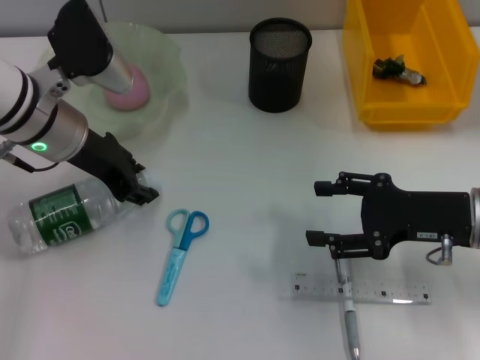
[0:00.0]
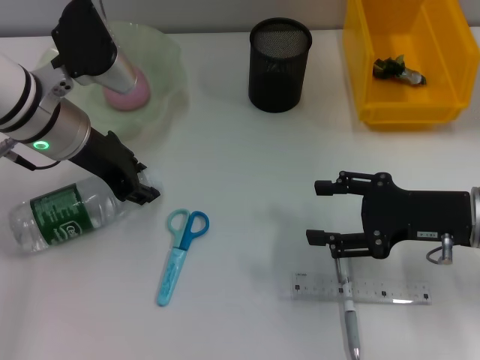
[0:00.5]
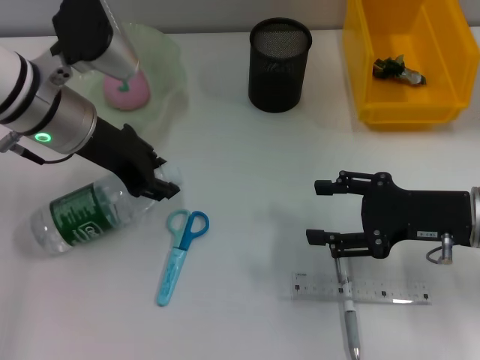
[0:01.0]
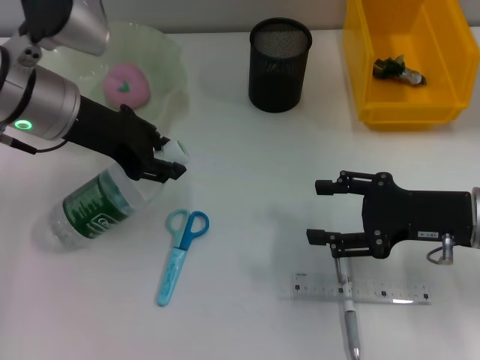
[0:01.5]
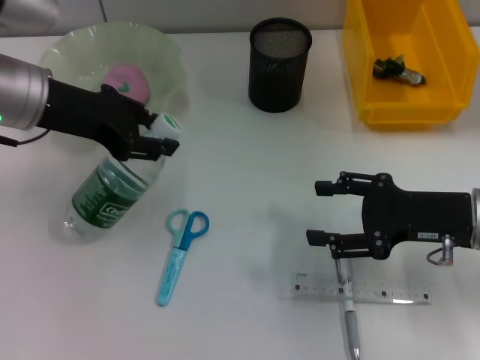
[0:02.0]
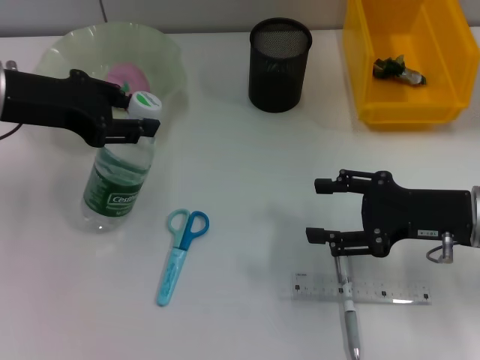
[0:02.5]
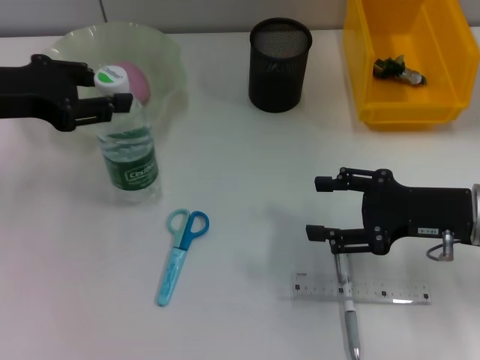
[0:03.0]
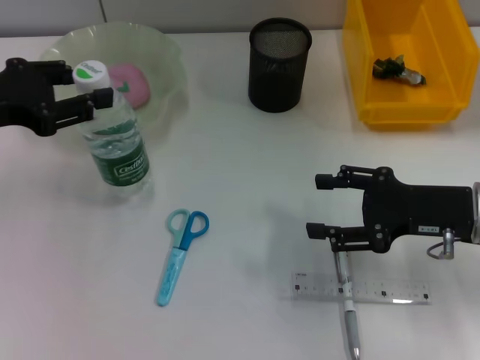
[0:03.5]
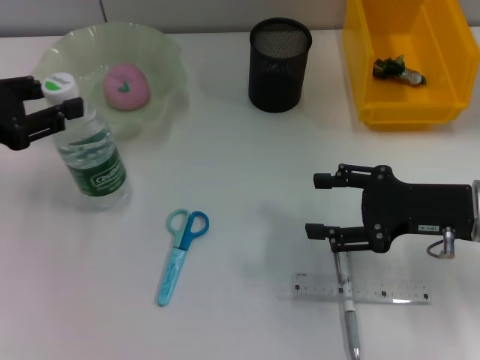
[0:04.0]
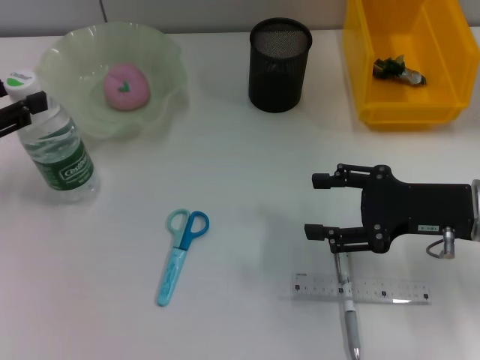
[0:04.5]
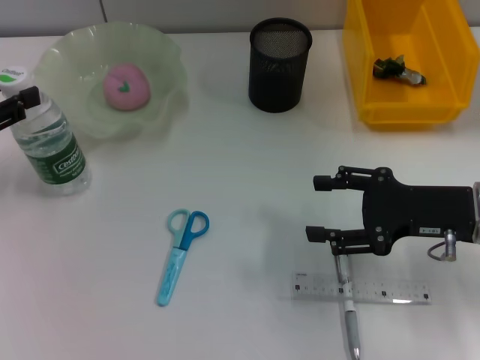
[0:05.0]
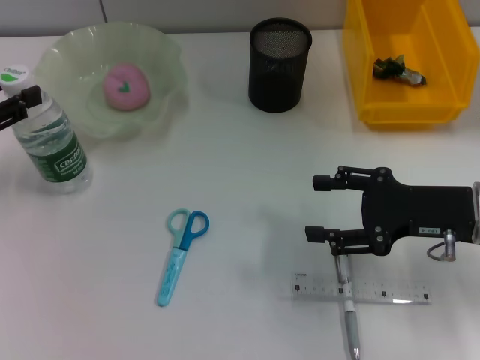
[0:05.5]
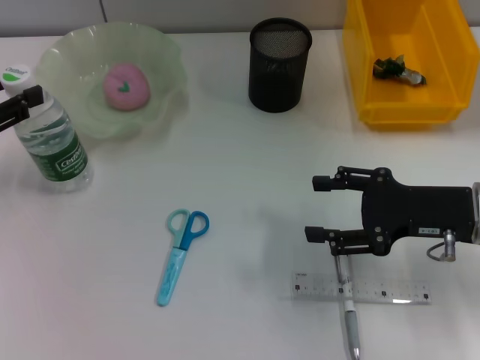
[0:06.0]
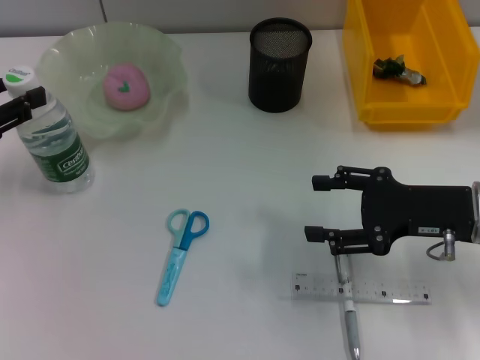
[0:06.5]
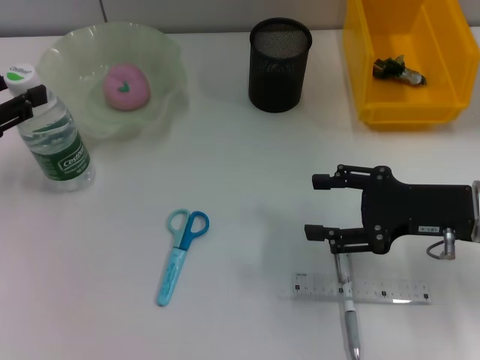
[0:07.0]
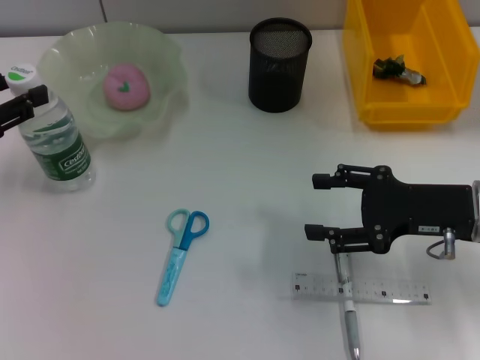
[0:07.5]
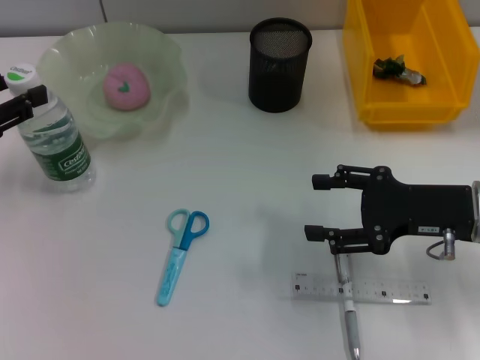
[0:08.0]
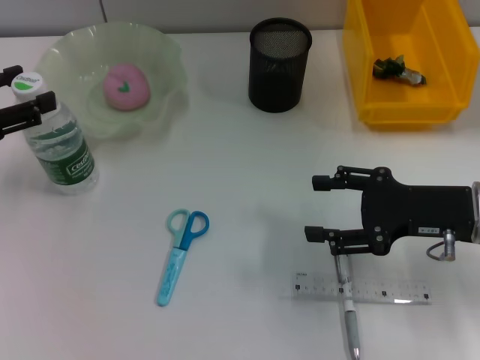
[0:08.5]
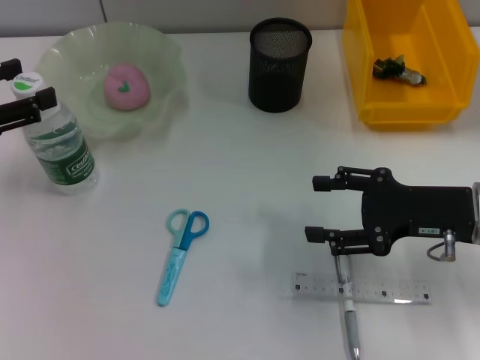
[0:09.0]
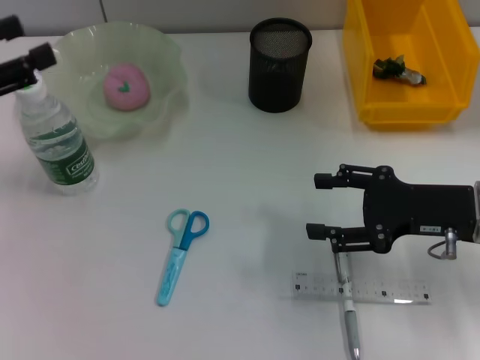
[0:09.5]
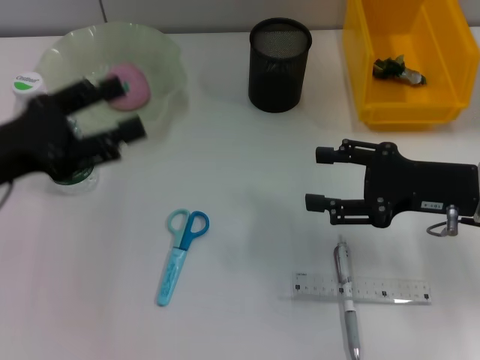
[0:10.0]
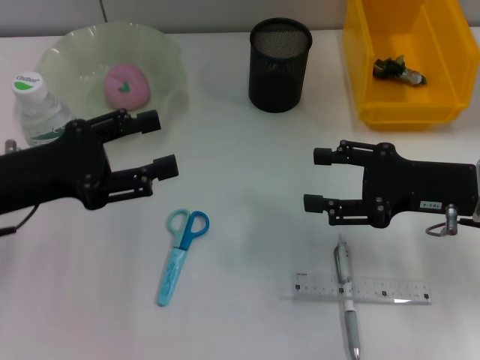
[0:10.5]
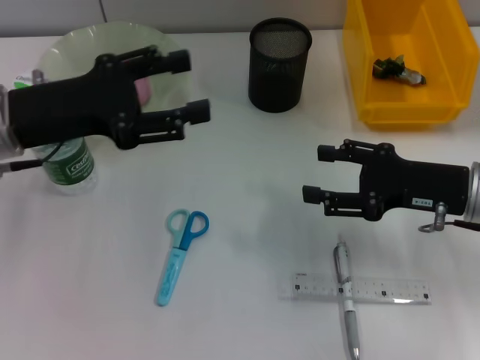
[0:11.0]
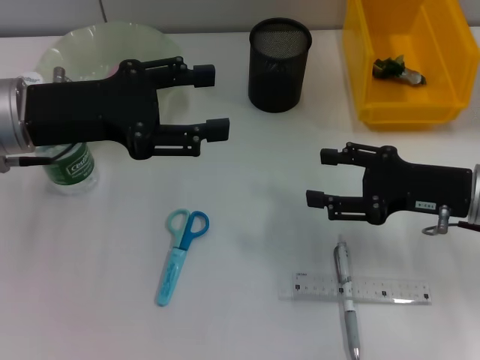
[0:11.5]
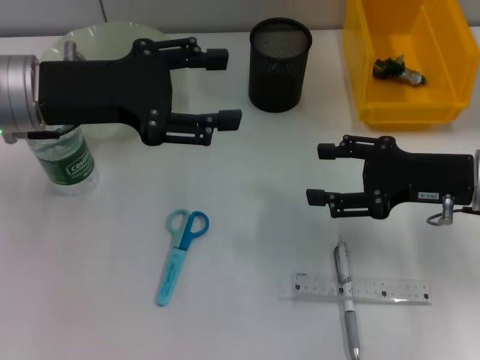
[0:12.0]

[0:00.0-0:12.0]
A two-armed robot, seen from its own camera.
Step, 0:01.0 to 0:08.5: Place the water bottle on the table with the left hand.
0:00.0 to 0:02.0: The left gripper ends up roughly 5 cm from where it was.
0:02.0 to 0:04.0: The left gripper moves to the left and backward, roughly 10 cm.
0:04.0 to 0:06.0: The grippers move only a little.
0:06.0 to 0:08.0: Both grippers stay put.
0:08.0 to 0:10.0: The left gripper shifts approximately 5 cm to the right, and opens up.
0:10.0 to 0:12.0: The left gripper travels to the right, forward and upward by about 10 cm.

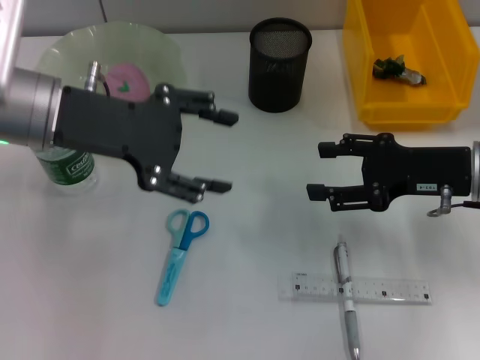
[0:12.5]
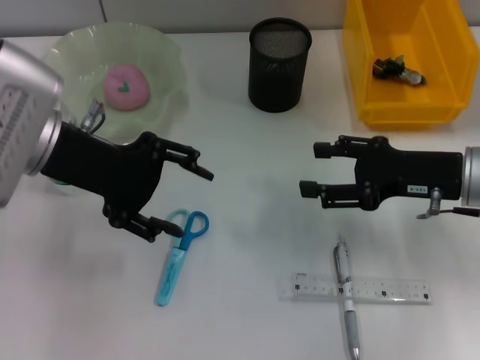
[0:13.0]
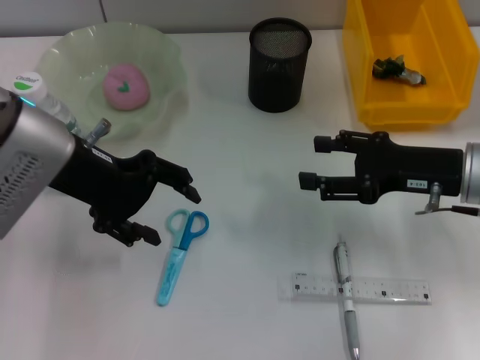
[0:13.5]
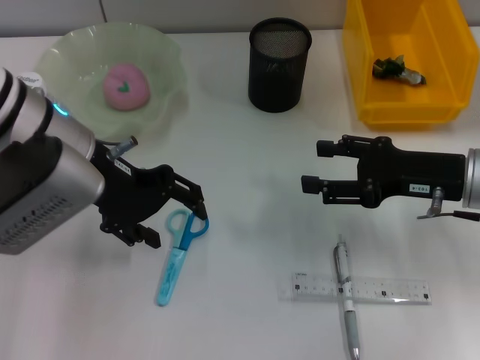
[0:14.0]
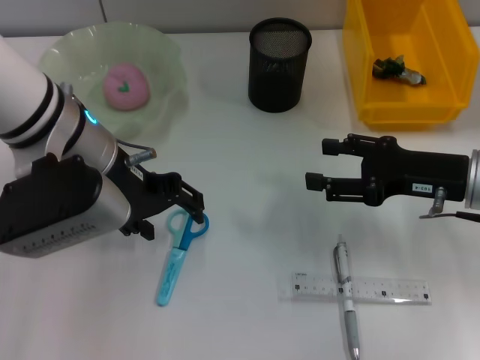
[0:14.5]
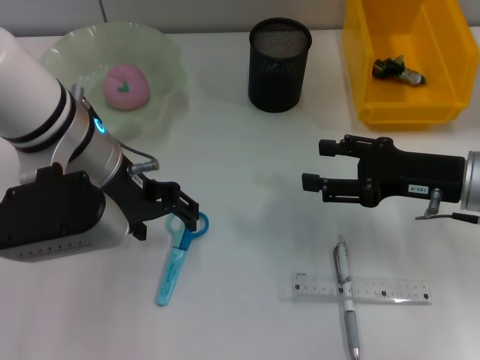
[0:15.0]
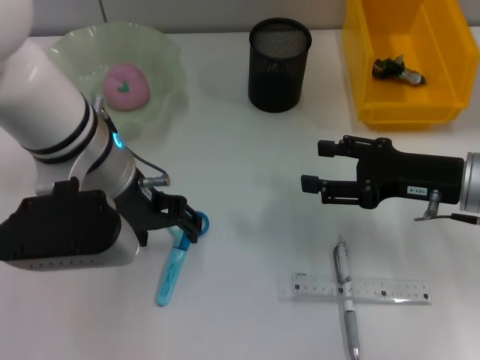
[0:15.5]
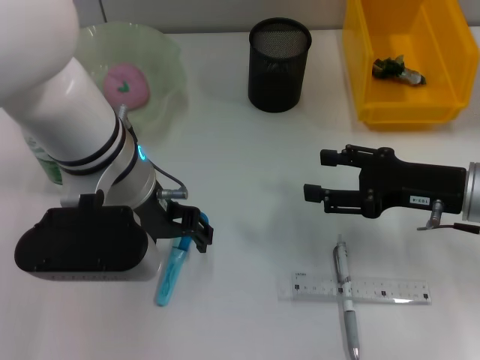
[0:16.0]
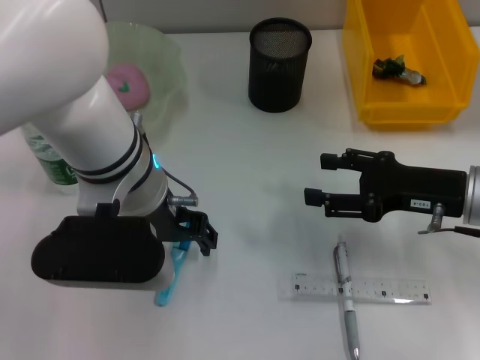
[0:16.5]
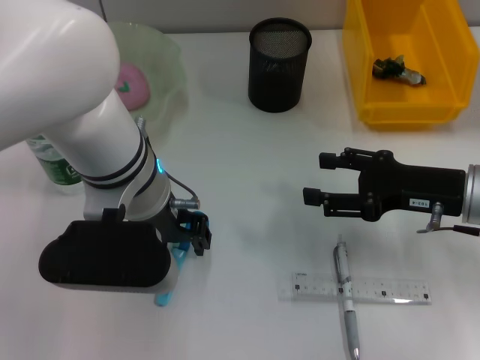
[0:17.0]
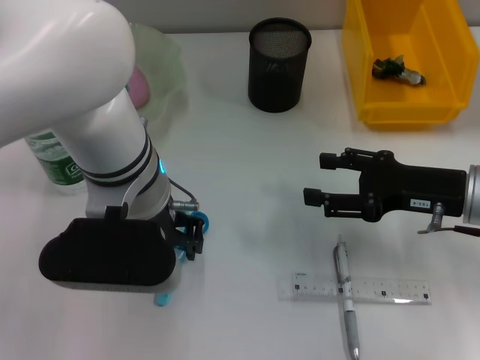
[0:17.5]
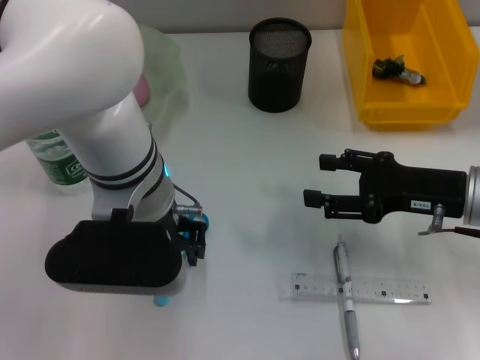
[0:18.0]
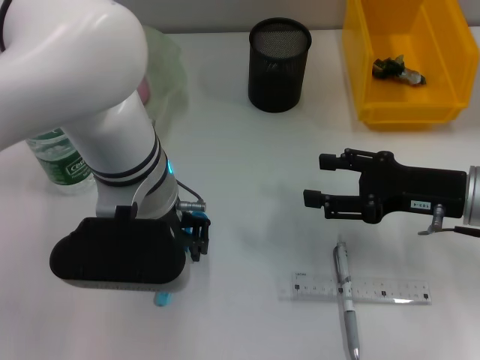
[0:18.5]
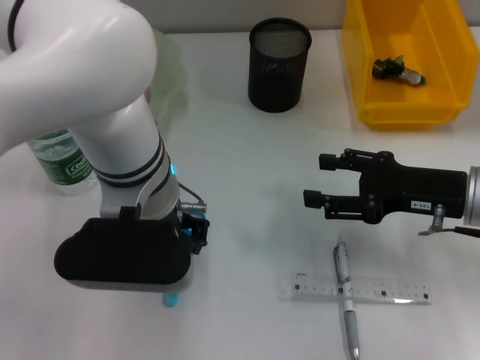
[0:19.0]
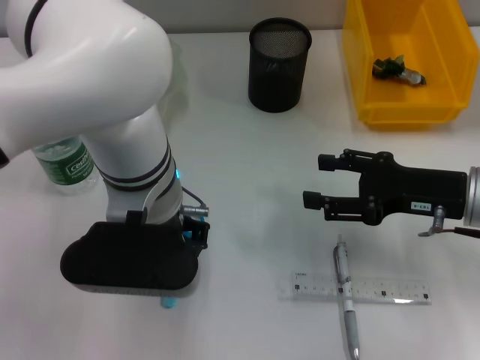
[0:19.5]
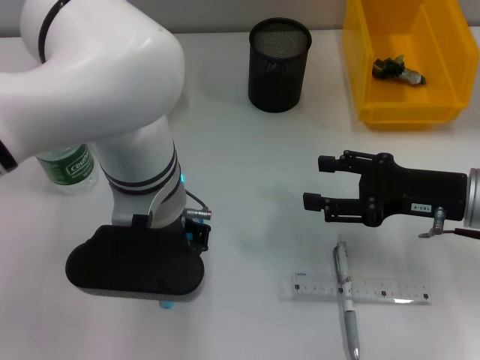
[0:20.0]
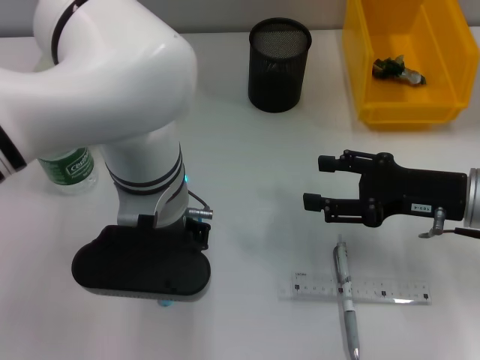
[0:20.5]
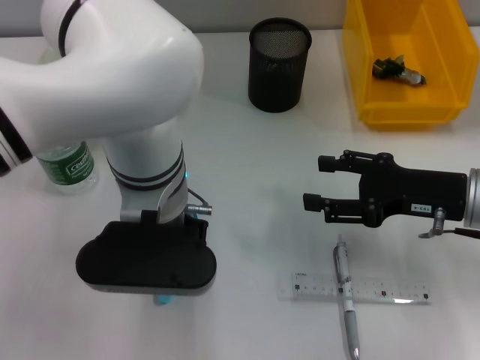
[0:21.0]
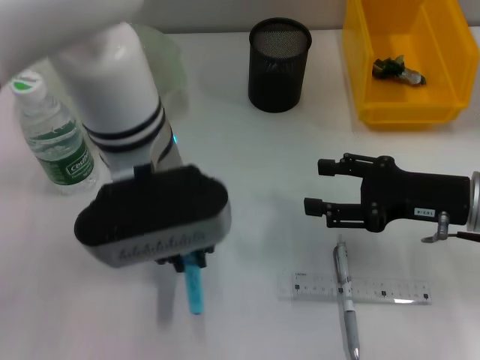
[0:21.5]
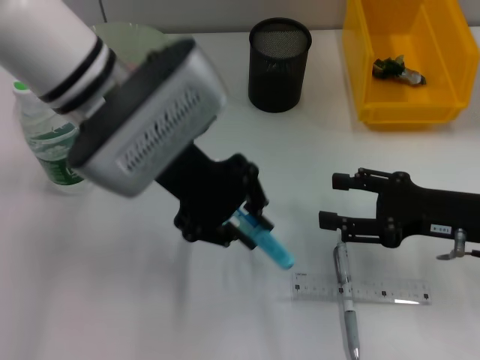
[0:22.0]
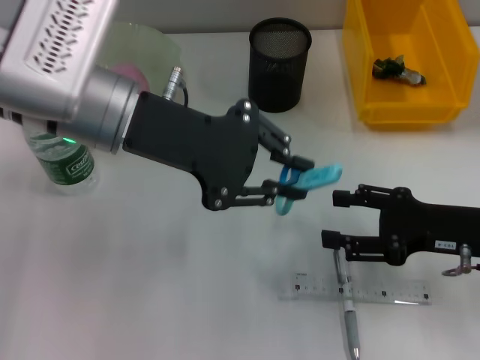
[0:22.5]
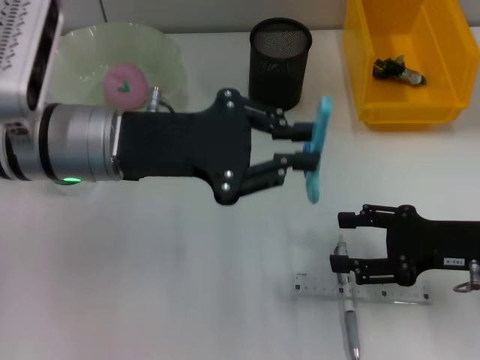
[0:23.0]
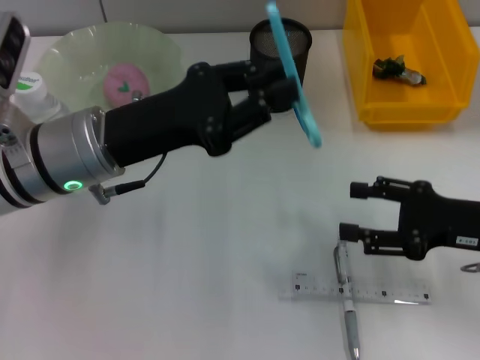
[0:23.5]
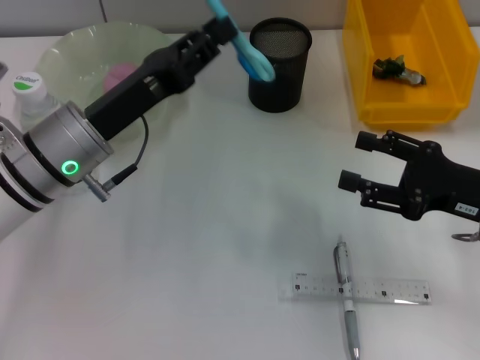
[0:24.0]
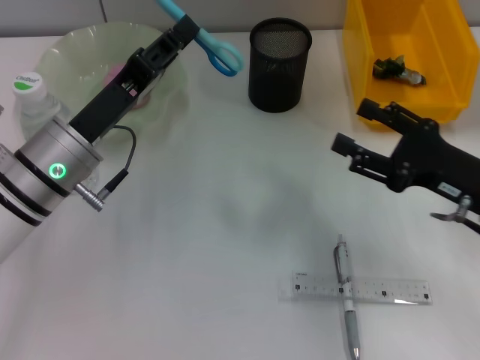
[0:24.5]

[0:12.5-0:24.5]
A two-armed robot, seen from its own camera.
Step, 0:12.5 to 0:20.5: Grab the blue scissors with the left hand.
0:12.5 to 0:14.5: The left gripper shifts by some 5 cm.
0:14.5 to 0:16.5: The left gripper travels to the right by some 5 cm.
0:16.5 to 0:18.5: The left gripper closes up.
0:20.5 to 0:22.5: The left gripper travels to the left and upward by some 10 cm.
0:22.5 to 0:24.5: The left gripper shifts some 10 cm downward.

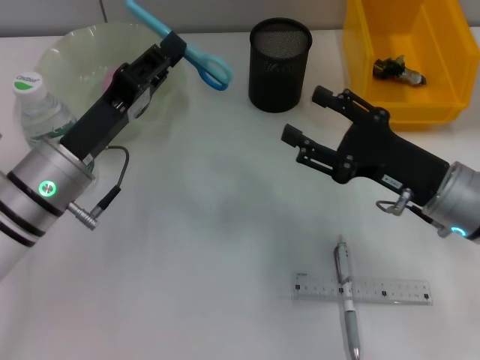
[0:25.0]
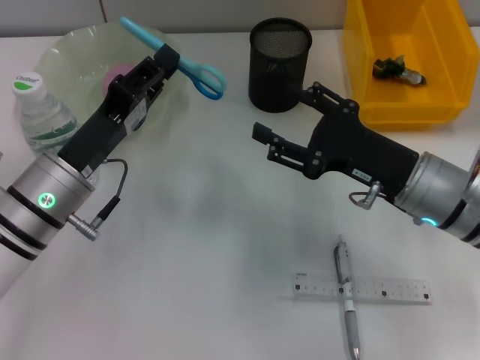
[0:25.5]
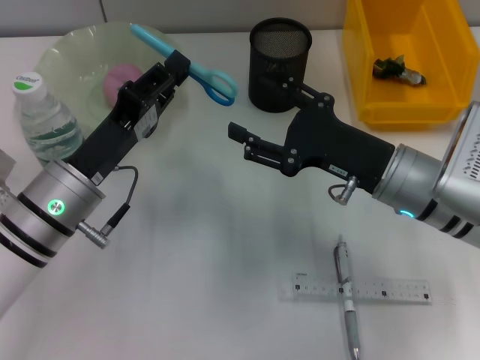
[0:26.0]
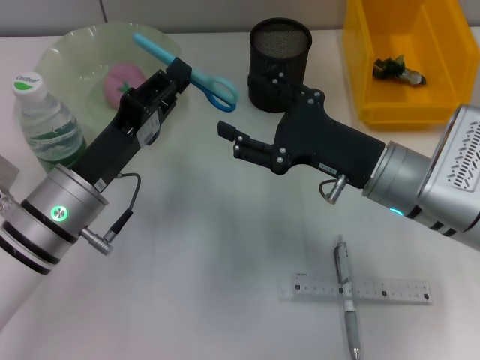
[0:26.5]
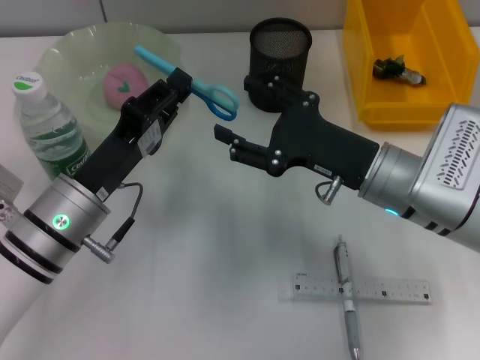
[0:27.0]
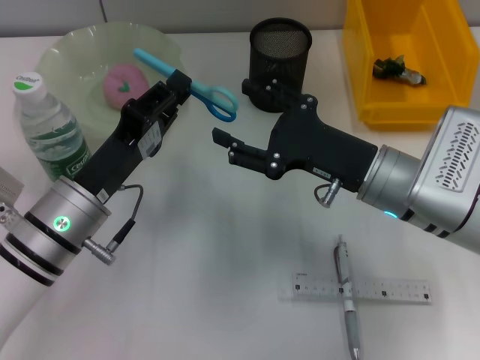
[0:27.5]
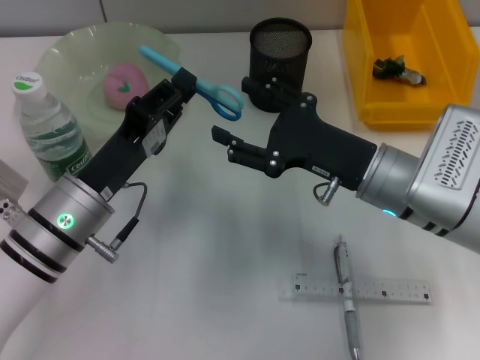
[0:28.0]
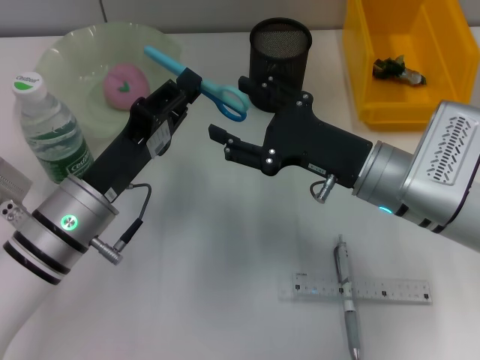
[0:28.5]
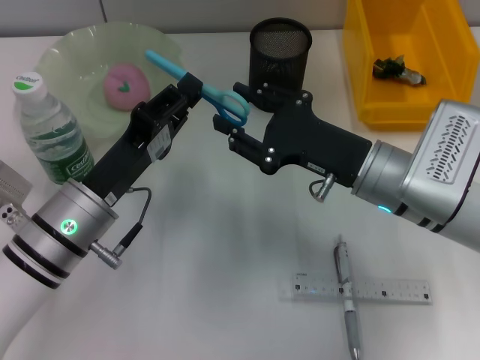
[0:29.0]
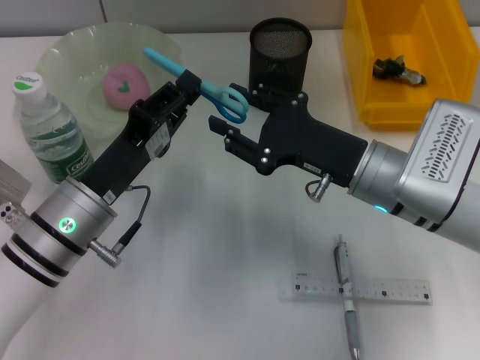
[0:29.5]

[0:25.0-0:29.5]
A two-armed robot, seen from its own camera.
0:25.0 to 0:27.0: The right gripper travels to the left by some 5 cm.
0:27.0 to 0:29.5: The right gripper closes its fingers.
